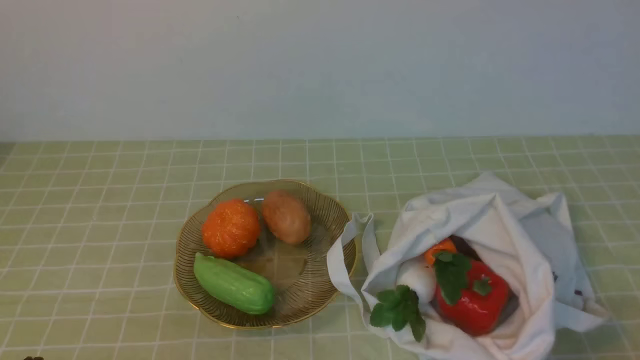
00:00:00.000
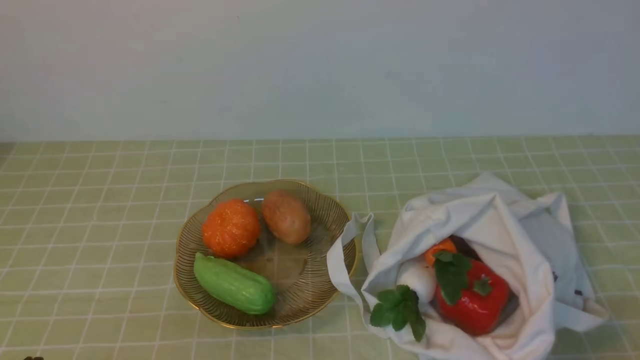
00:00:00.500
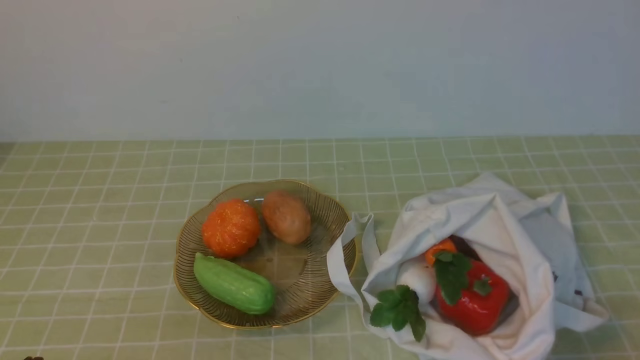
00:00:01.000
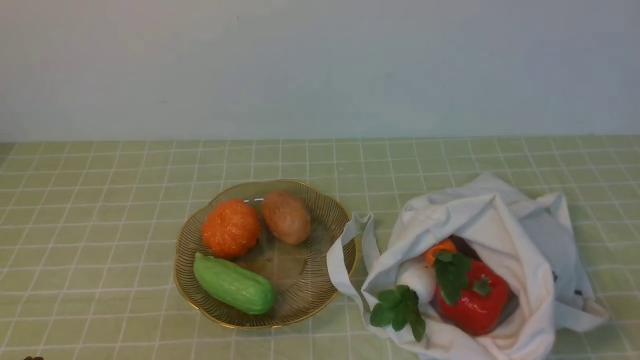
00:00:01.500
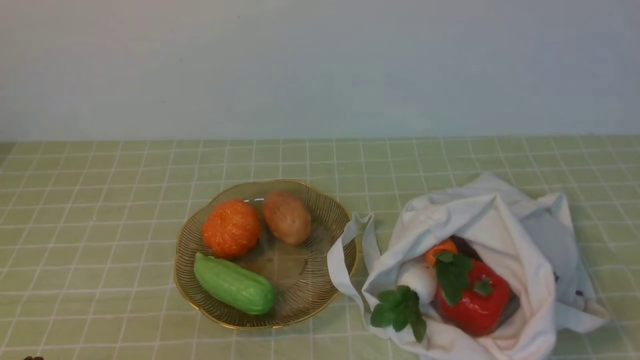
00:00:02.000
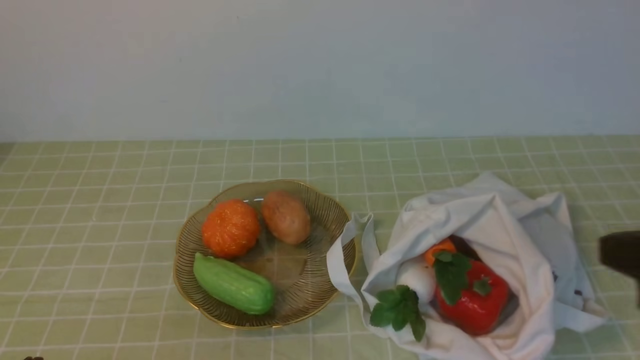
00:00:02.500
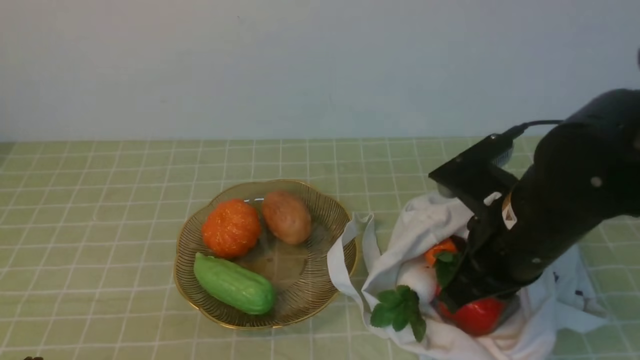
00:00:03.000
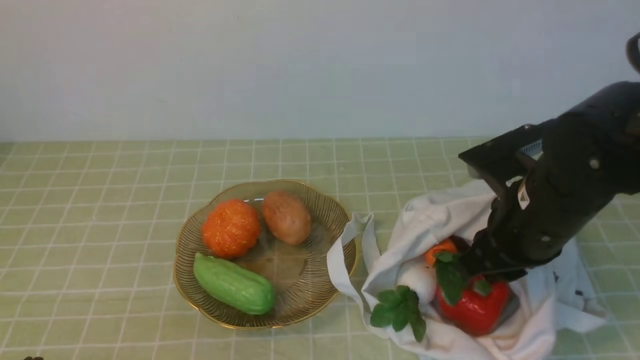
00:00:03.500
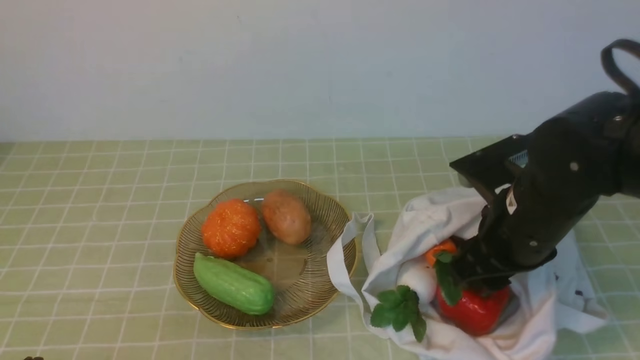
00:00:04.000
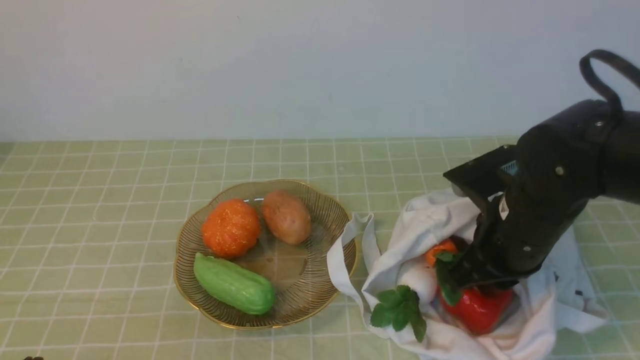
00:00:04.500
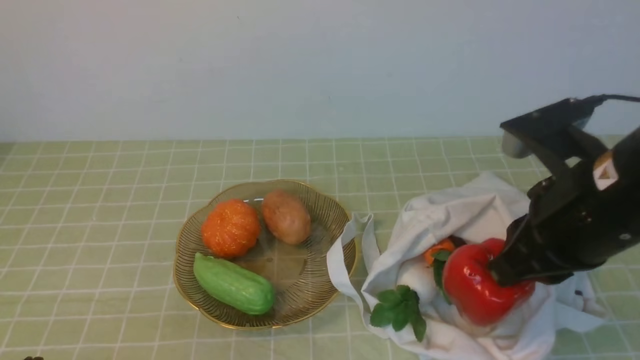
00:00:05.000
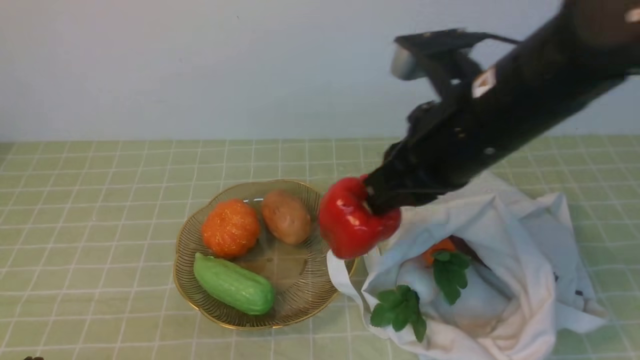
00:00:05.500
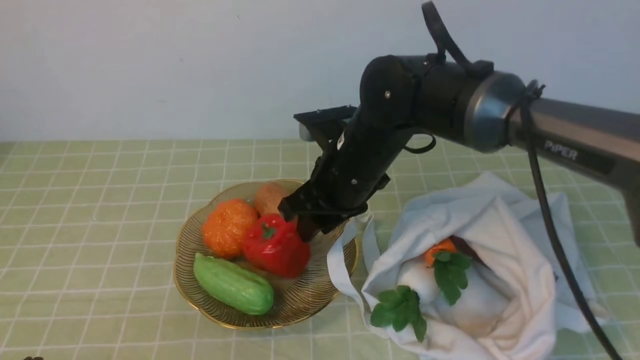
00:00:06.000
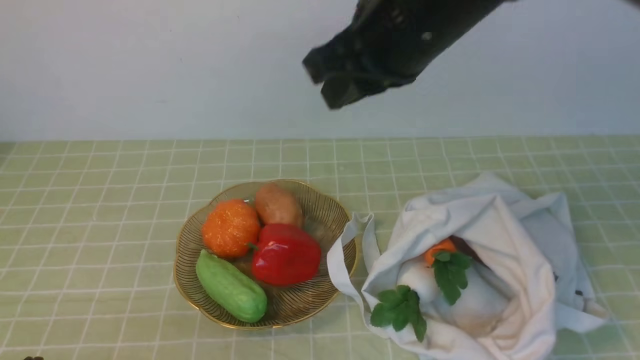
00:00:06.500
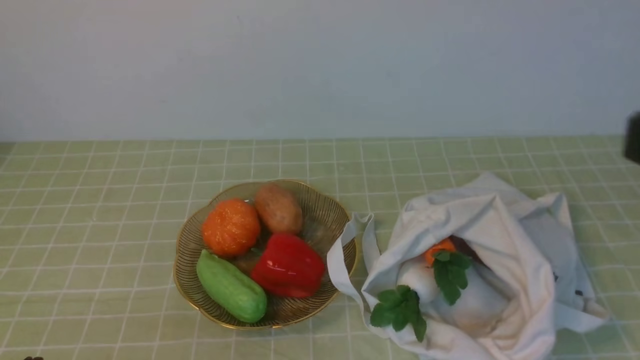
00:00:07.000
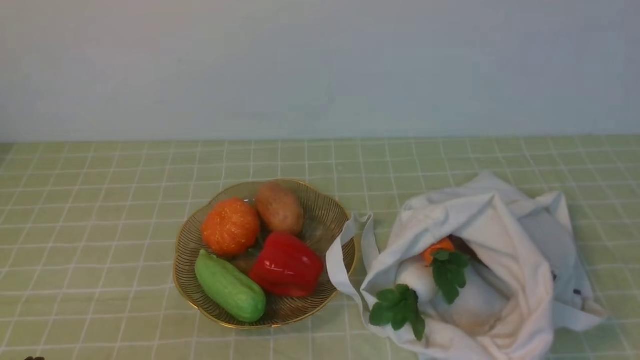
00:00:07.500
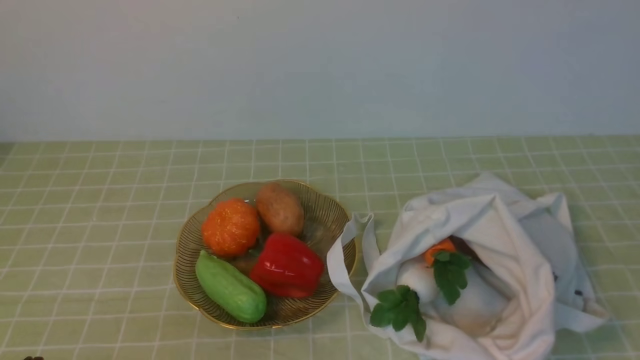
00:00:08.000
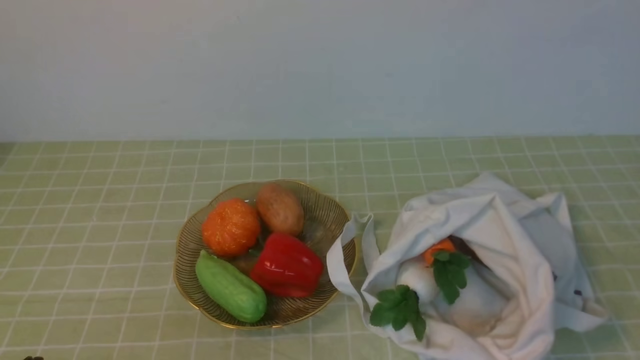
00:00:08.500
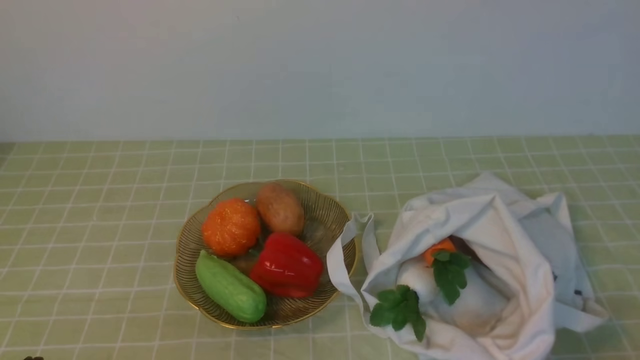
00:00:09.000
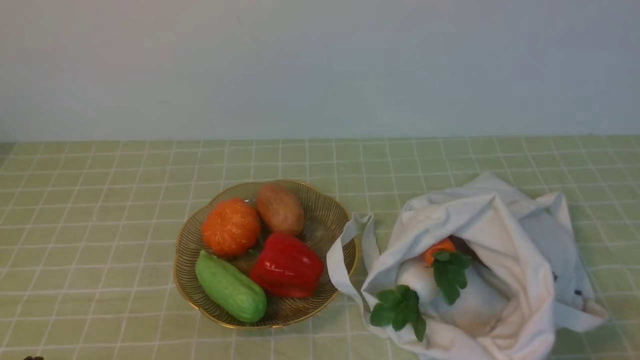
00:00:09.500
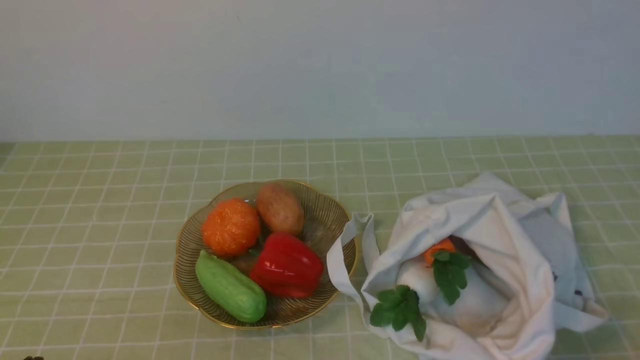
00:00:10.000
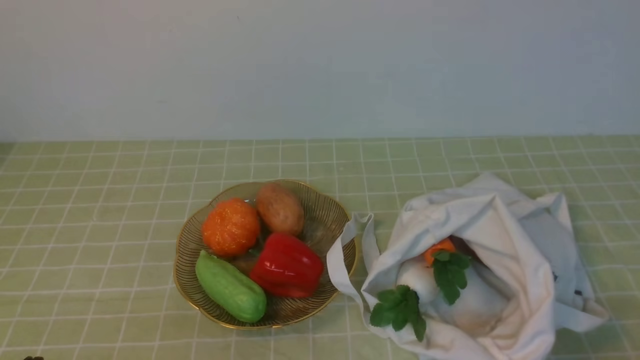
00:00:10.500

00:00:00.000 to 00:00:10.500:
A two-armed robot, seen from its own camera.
Task of the whole recording: take vegetables from bag on green coffee tablecloth place on plate.
Step, 00:00:00.000 to 00:00:04.000: Grasp the bell pepper with right gripper.
Step, 00:00:05.000 to 00:00:06.000: Place the bell pepper on the plate with right gripper.
00:00:02.000 to 00:00:04.000: The right gripper is displaced forward and to the left by roughly 25 cm, and opens its fingers.
00:00:04.000 to 00:00:06.500: The right gripper goes up and down, roughly 20 cm each way, reversing 2 times, and closes up.
00:00:06.500 to 00:00:08.500: The right gripper moves backward, to the right and downward, roughly 35 cm, and closes up.
